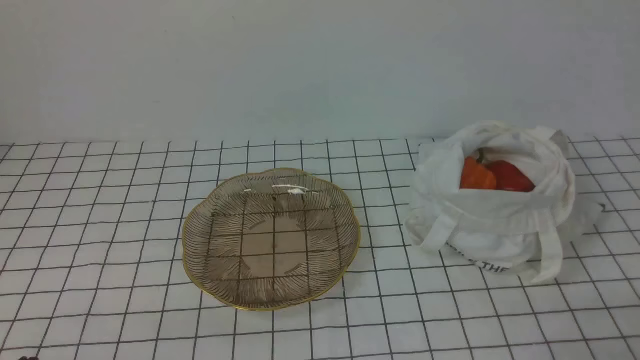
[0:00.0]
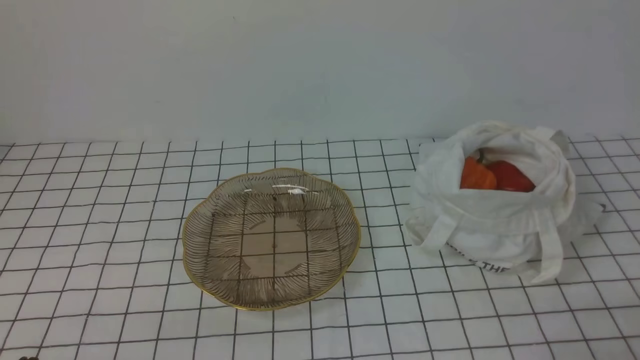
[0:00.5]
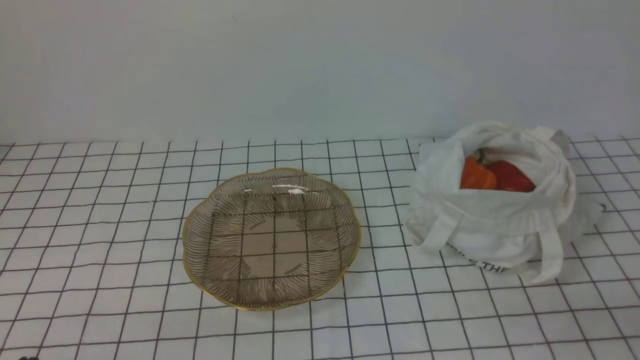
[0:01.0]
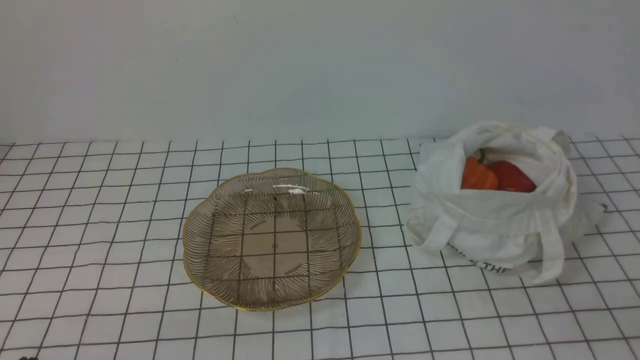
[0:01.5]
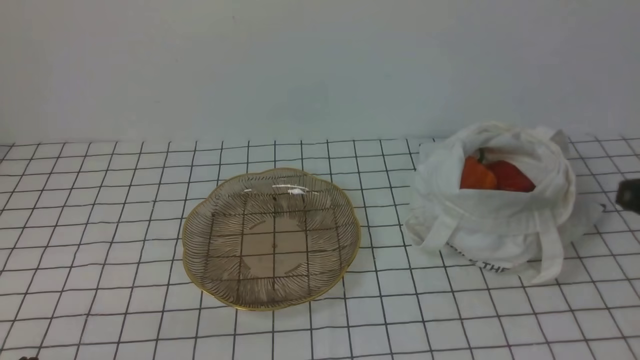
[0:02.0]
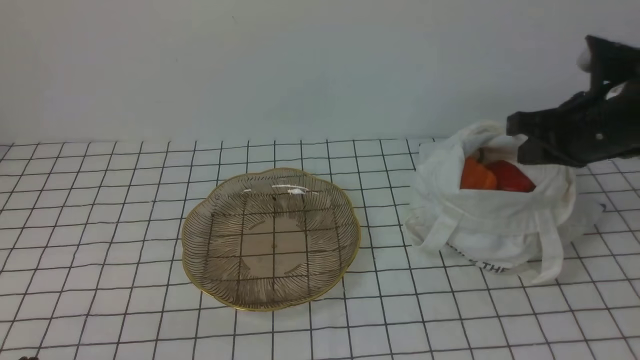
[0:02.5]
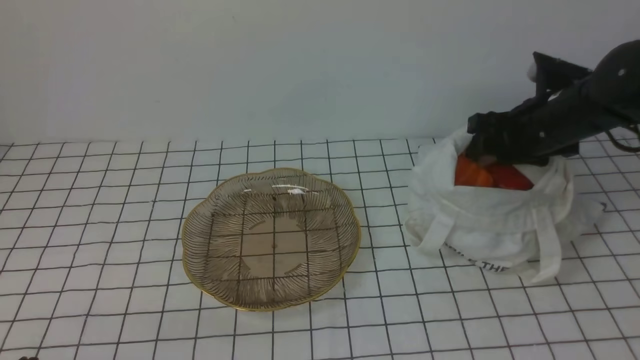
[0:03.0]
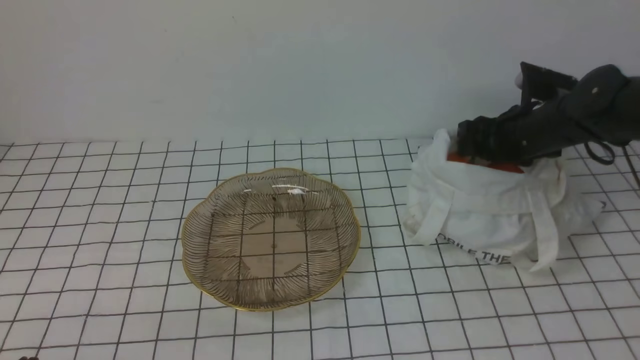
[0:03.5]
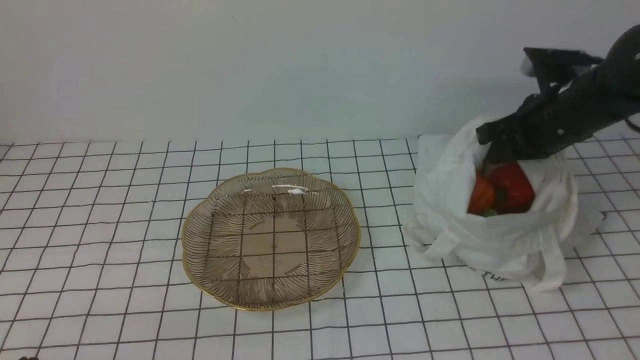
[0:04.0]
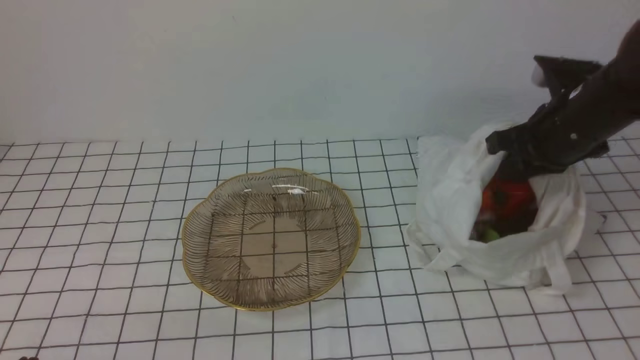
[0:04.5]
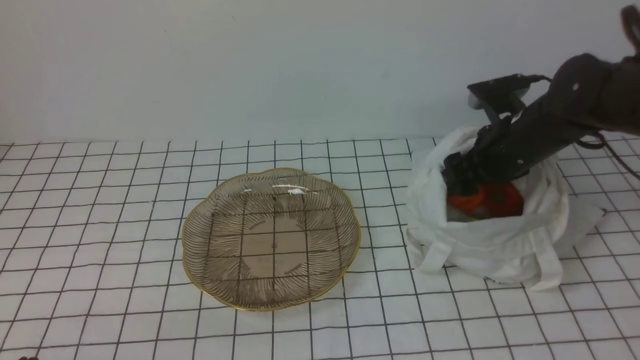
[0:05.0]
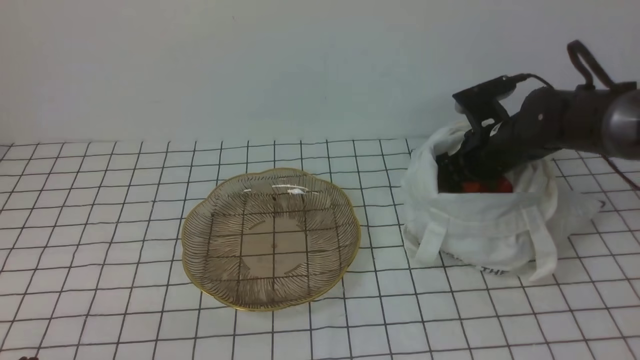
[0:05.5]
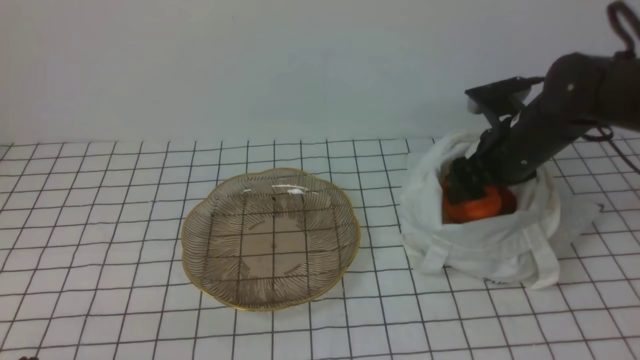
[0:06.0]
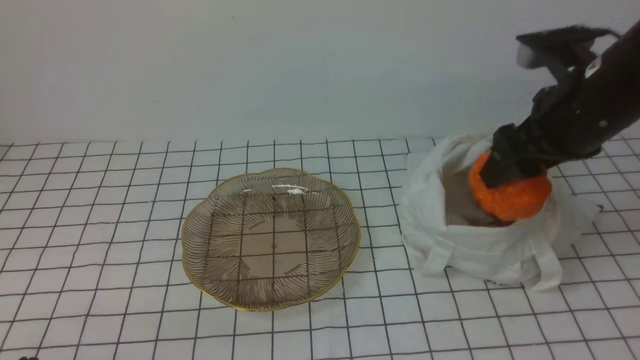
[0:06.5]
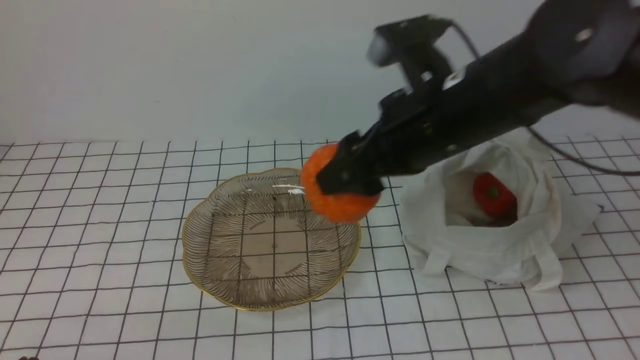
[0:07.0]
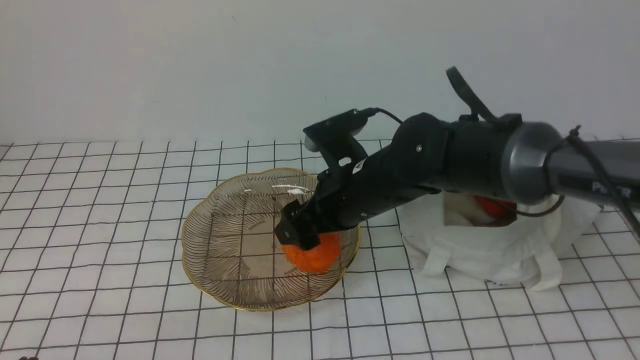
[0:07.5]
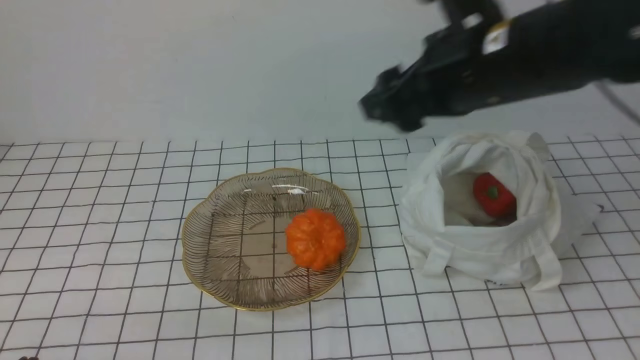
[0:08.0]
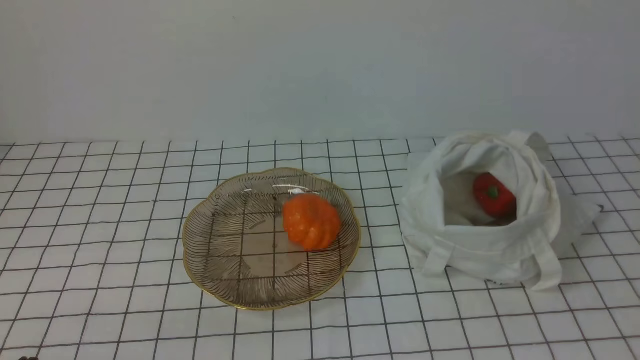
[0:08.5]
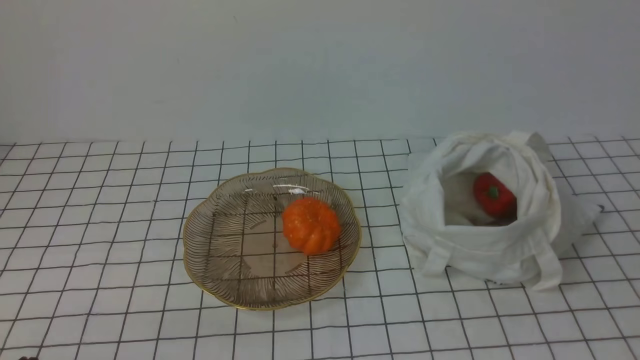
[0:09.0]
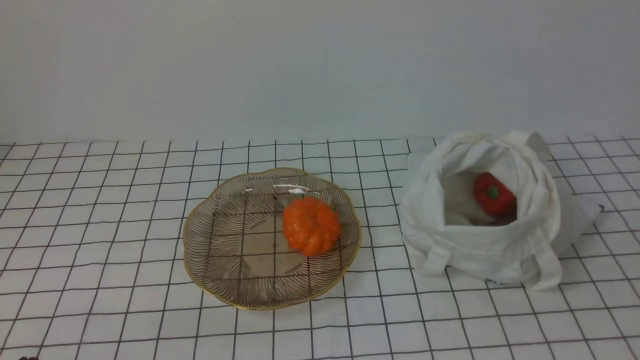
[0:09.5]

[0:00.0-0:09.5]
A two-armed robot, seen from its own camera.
Task of the whole recording: take vegetables from bag on white checkered tablecloth place on plate.
Step, 0:00.0 to 0:05.5: Grasp the pumpkin with right gripper.
Step, 0:06.0 to 0:07.5: Place the pumpkin on the plate with right gripper.
0:02.0 to 0:04.0: The right gripper is displaced forward by about 20 cm, and opens, then closes once more.
0:04.0 to 0:05.5: The right gripper travels downward by approximately 10 cm, and opens.
0:05.5 to 0:07.5: The right gripper travels to the left and backward by roughly 20 cm.
0:07.5 to 0:09.5: The right gripper travels backward and to the right by some 40 cm, and closes up.

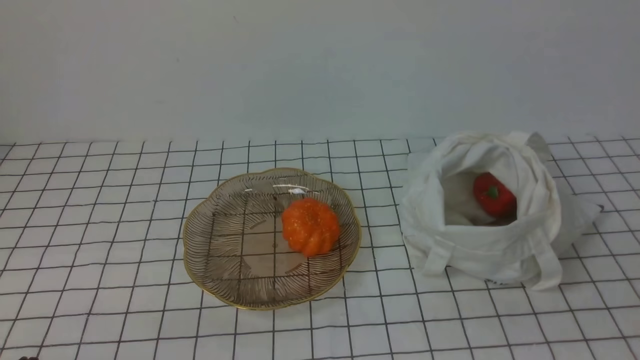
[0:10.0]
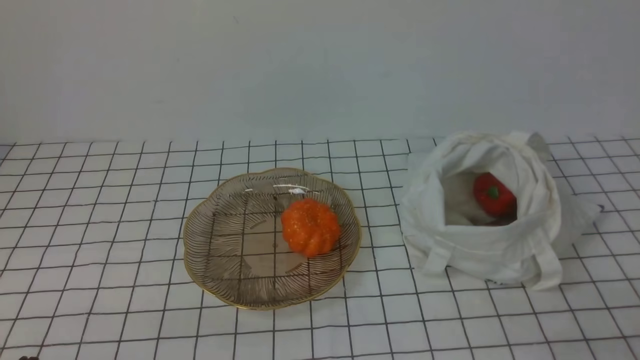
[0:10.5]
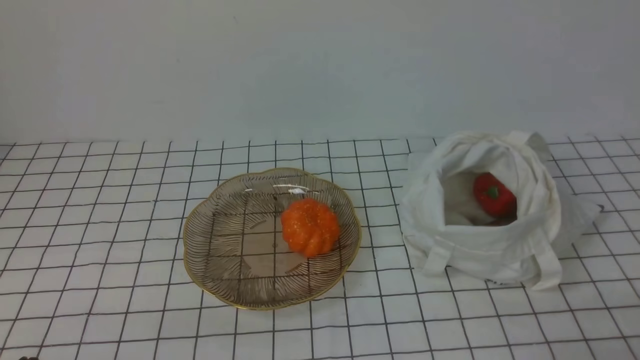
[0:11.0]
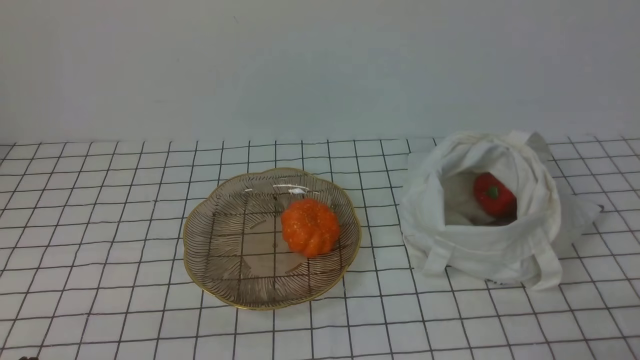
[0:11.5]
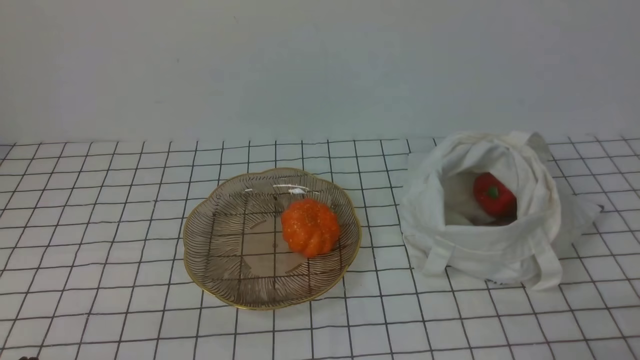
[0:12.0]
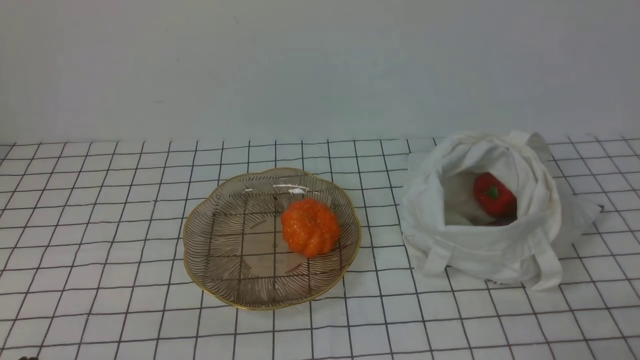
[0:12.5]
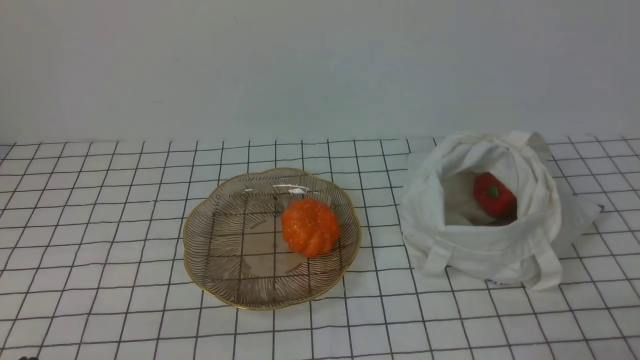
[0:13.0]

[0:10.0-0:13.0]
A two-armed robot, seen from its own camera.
Task of the whole recording: take vegetables from bag on white checkered tablecloth place on plate.
0:11.5 to 0:13.0: Neither gripper changes place.

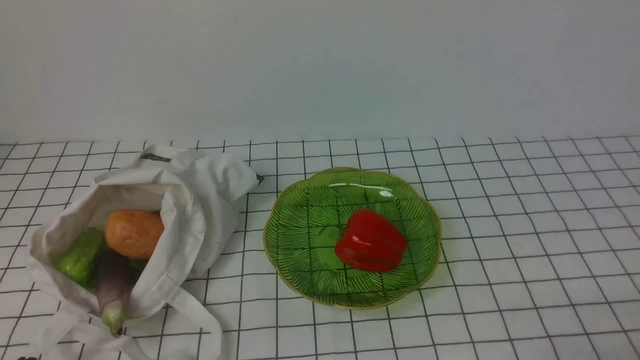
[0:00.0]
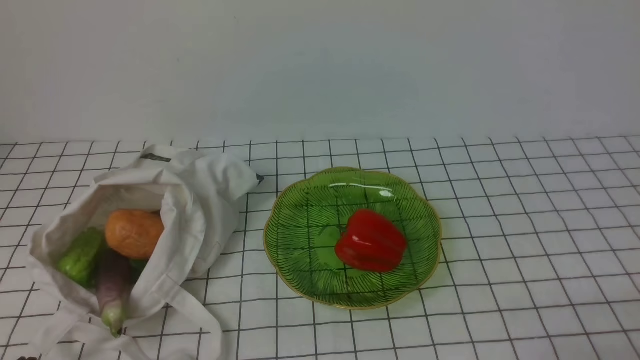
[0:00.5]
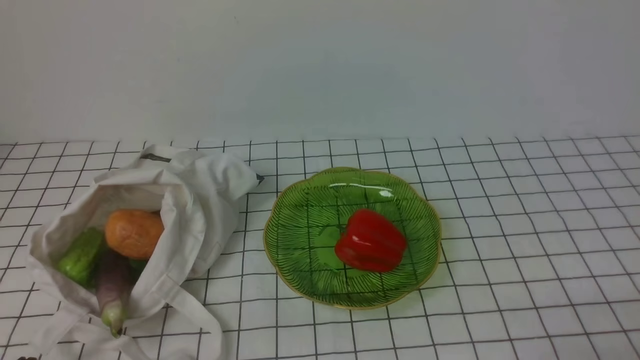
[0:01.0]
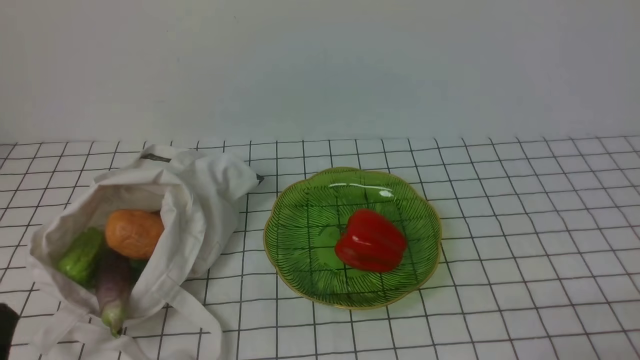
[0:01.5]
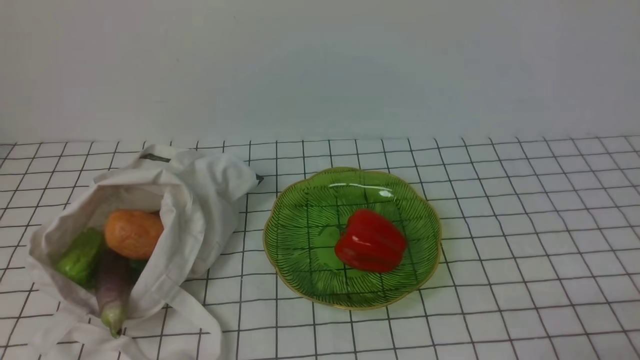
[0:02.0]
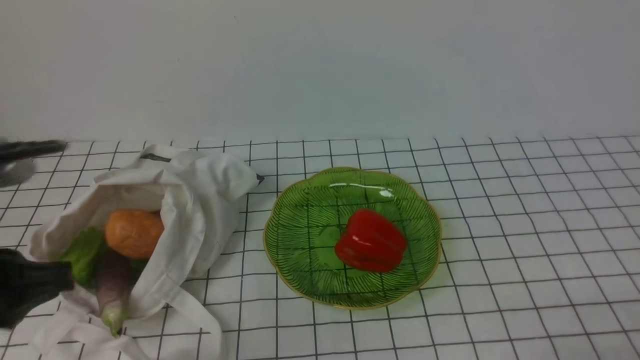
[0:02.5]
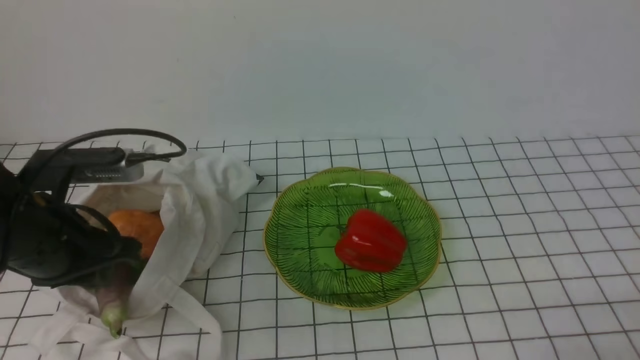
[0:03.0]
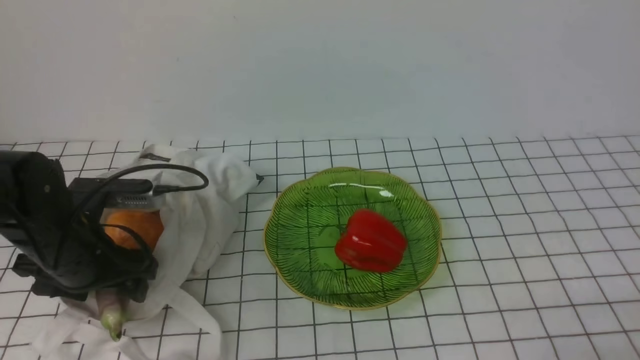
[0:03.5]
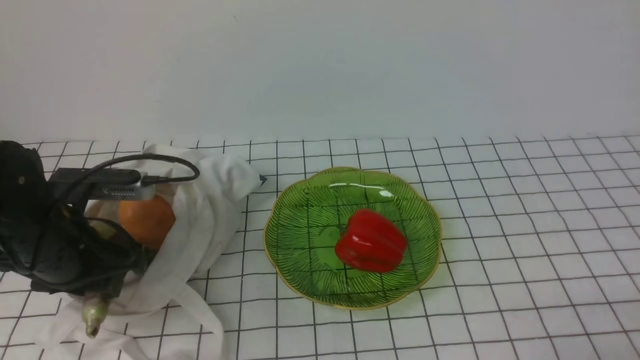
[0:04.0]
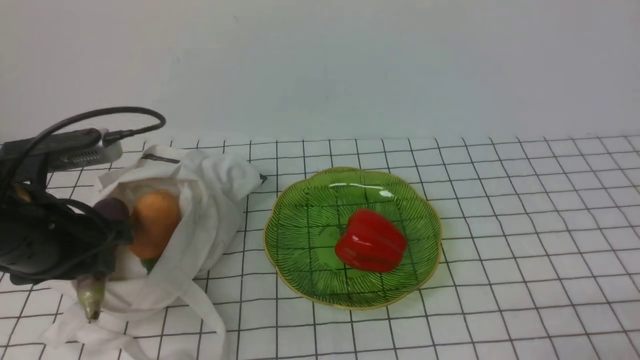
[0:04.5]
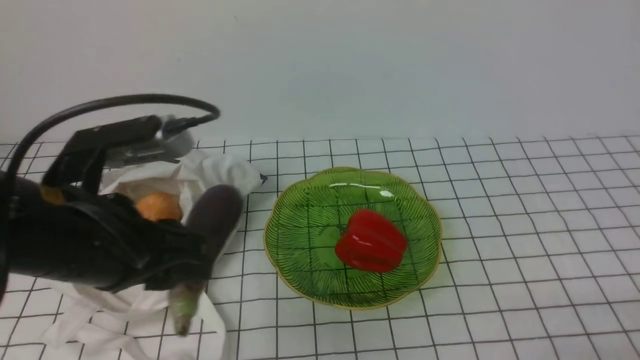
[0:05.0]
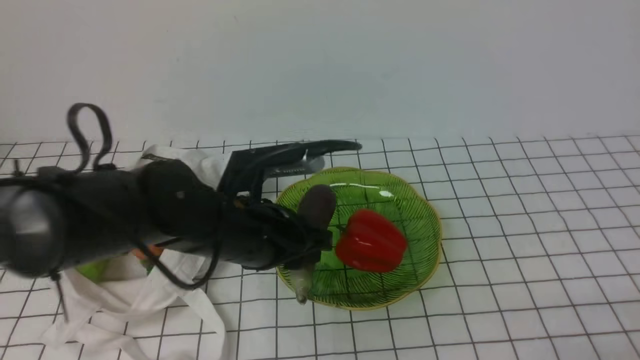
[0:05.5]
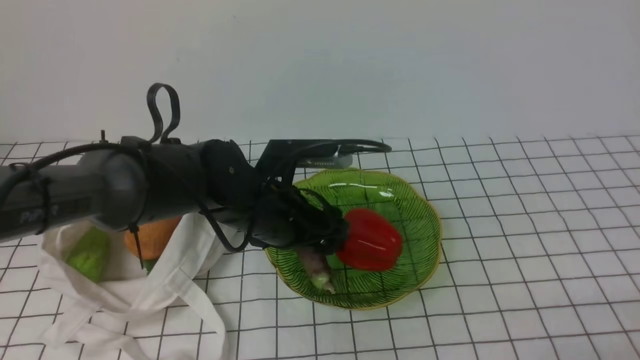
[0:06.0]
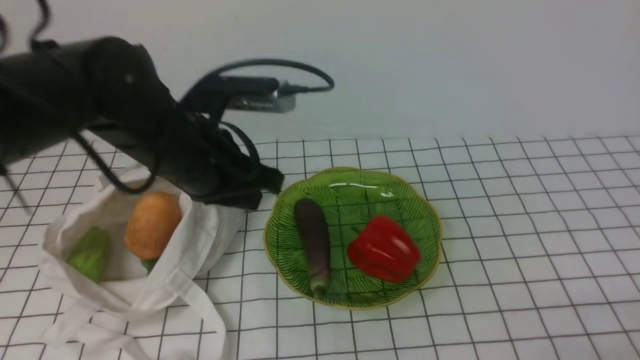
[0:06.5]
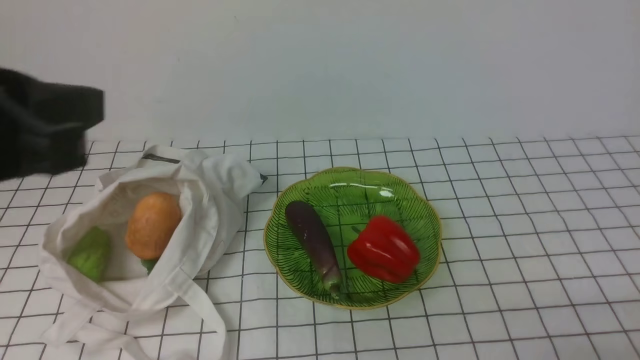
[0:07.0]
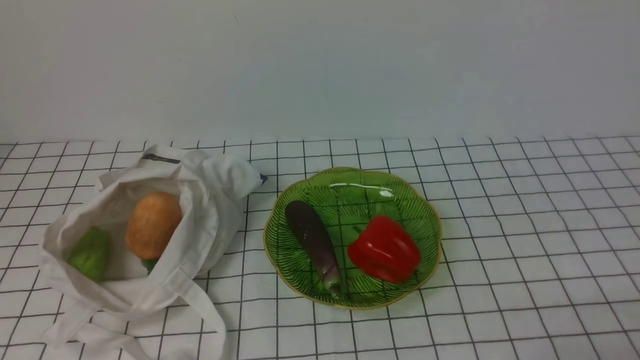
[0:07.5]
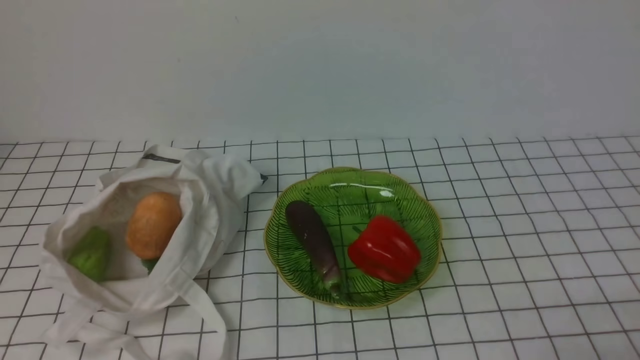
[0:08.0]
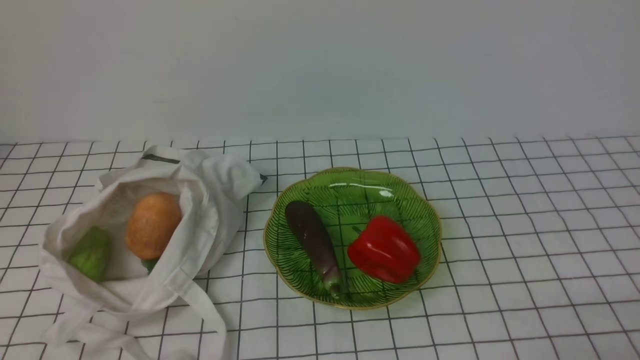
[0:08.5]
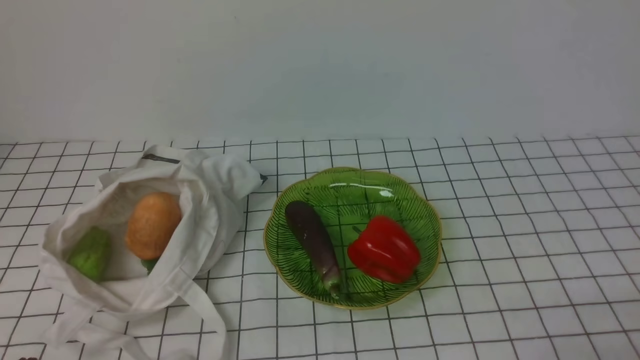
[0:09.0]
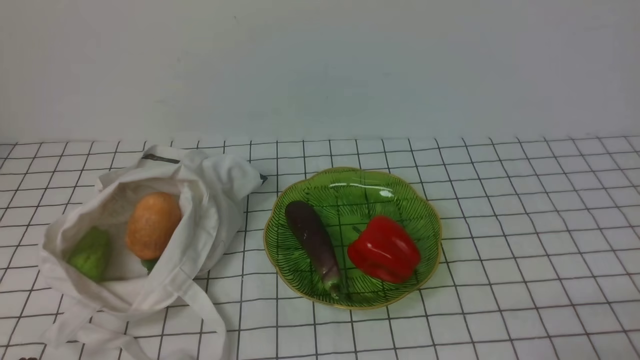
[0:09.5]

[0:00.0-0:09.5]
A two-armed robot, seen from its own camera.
Task of the whole recording: take vegetables from bag on white checkered tablecloth place on plate.
Step, 0:00.0 to 0:03.5: Grasp the eggplant with left gripper.
Step, 0:04.0 to 0:06.0: Place the eggplant on the plate with left gripper.
0:02.0 to 0:04.0: The left gripper is displaced forward by approximately 20 cm, and opens up.
0:04.0 to 0:05.5: The left gripper goes some 15 cm to the right.
0:05.5 to 0:07.5: The left gripper is displaced backward, upward and to the left by roughly 35 cm, and closes its fingers.
